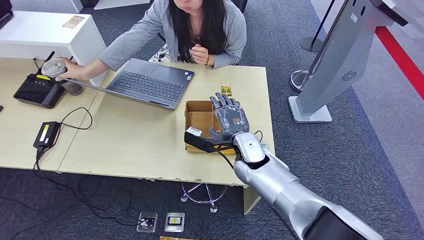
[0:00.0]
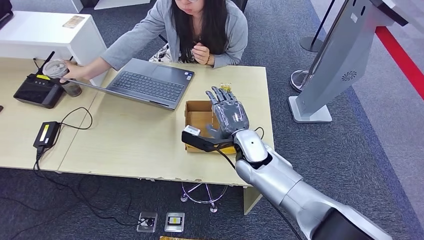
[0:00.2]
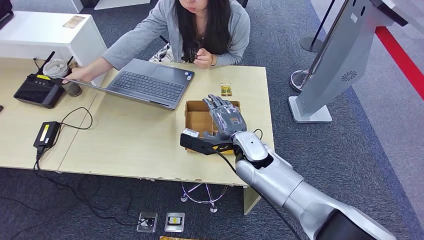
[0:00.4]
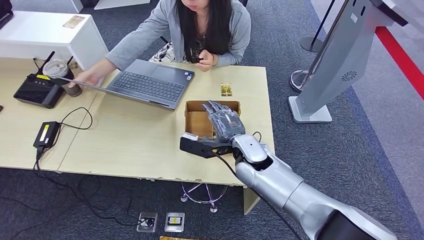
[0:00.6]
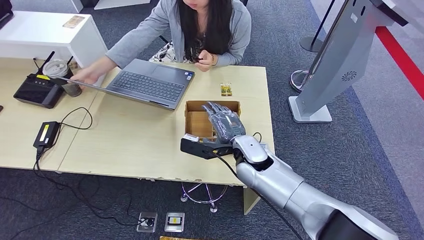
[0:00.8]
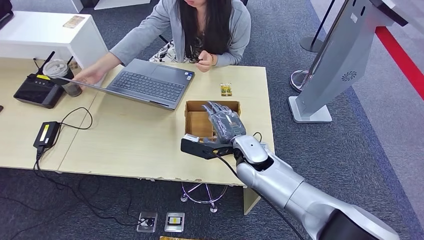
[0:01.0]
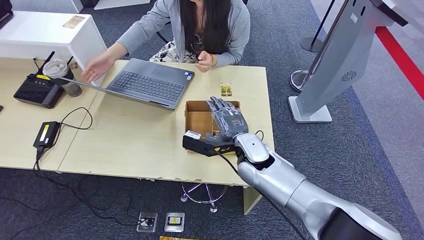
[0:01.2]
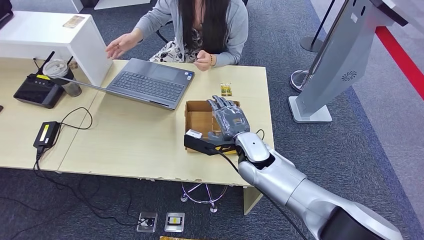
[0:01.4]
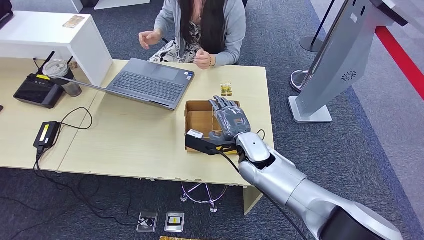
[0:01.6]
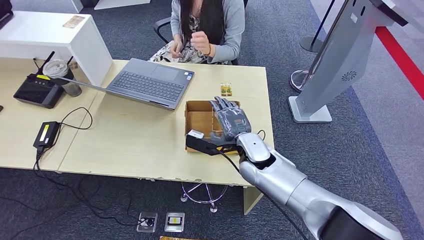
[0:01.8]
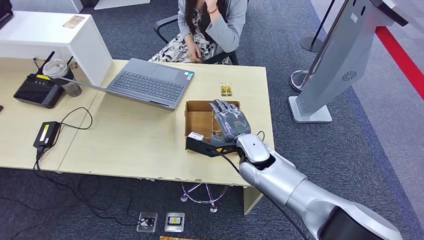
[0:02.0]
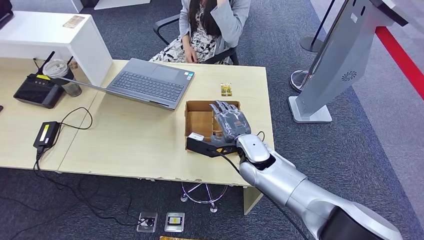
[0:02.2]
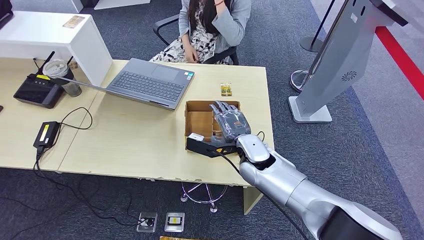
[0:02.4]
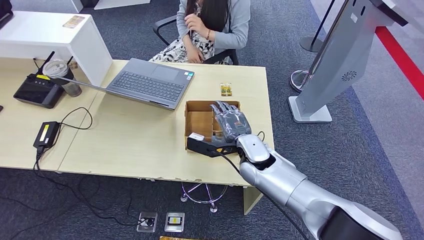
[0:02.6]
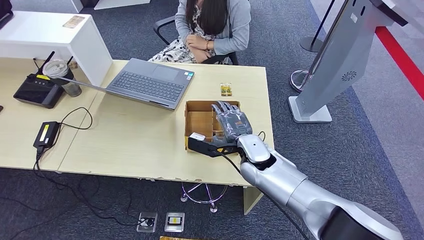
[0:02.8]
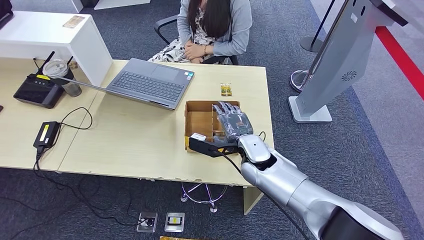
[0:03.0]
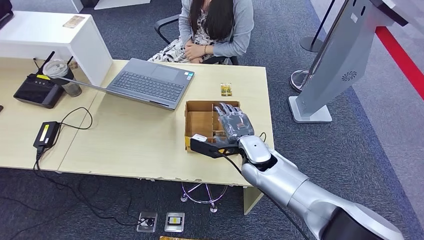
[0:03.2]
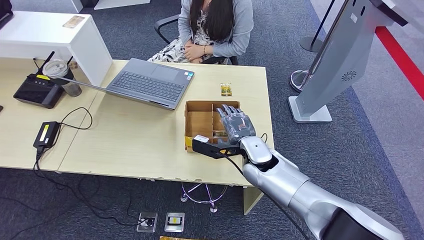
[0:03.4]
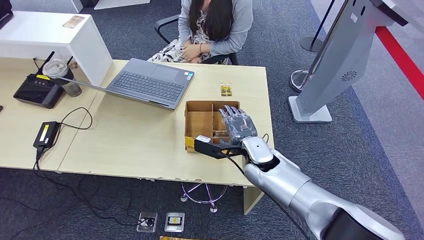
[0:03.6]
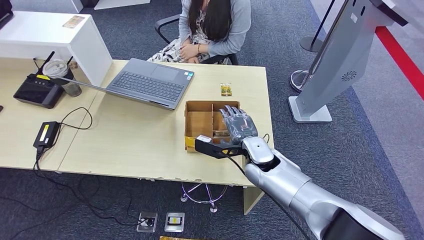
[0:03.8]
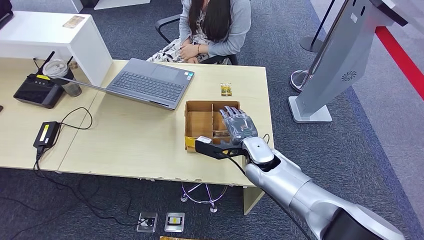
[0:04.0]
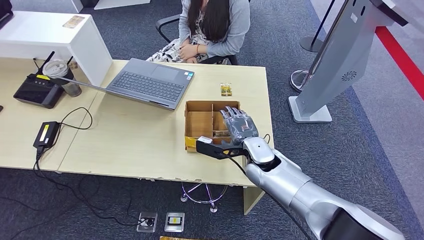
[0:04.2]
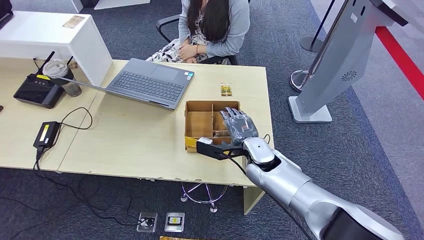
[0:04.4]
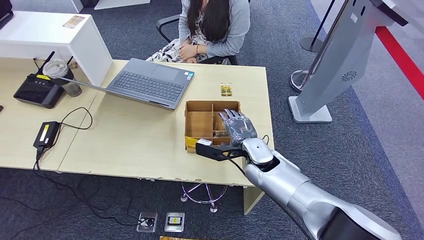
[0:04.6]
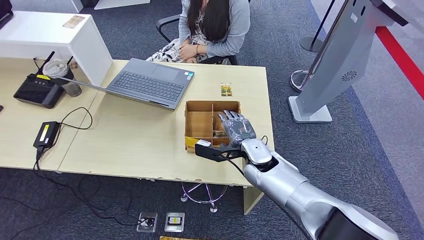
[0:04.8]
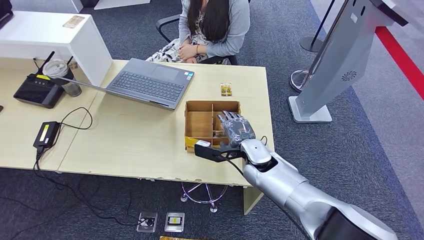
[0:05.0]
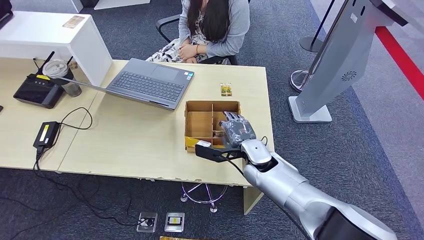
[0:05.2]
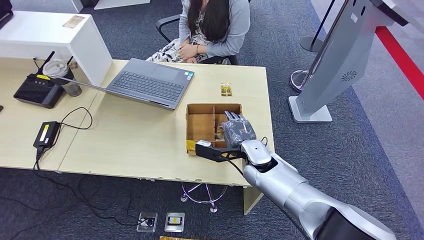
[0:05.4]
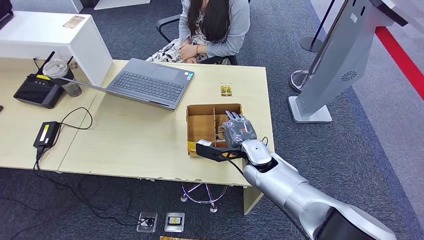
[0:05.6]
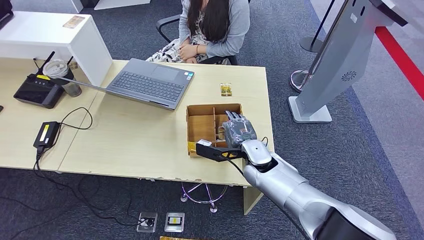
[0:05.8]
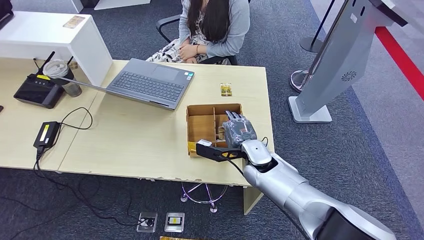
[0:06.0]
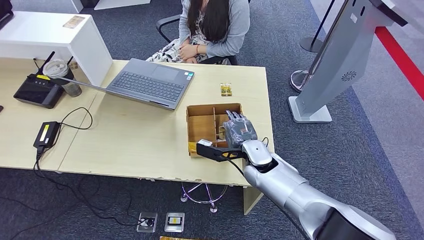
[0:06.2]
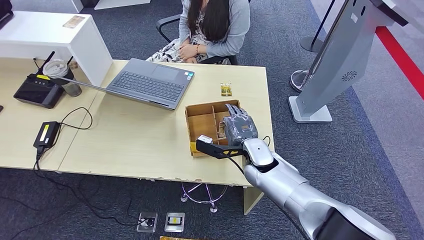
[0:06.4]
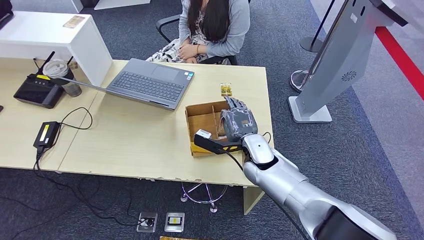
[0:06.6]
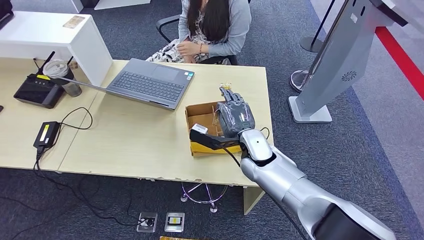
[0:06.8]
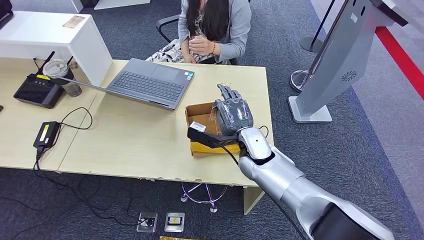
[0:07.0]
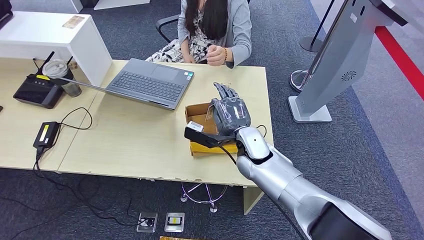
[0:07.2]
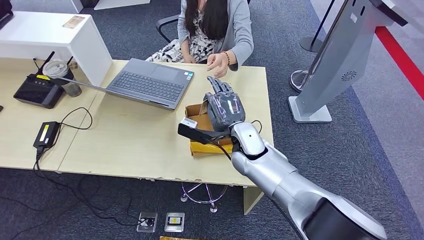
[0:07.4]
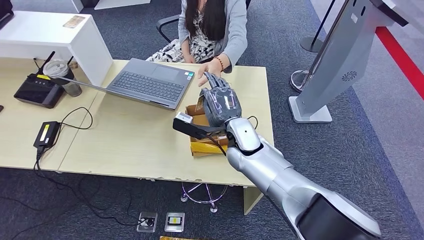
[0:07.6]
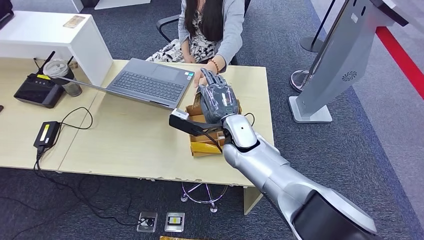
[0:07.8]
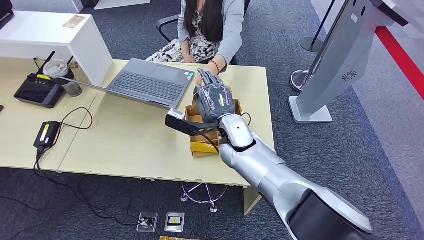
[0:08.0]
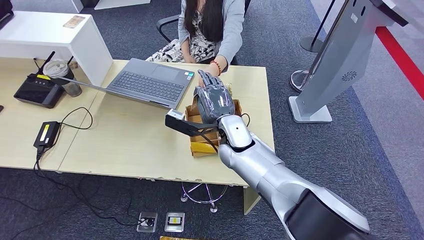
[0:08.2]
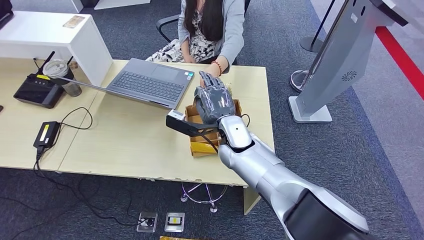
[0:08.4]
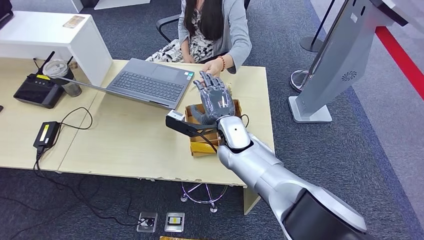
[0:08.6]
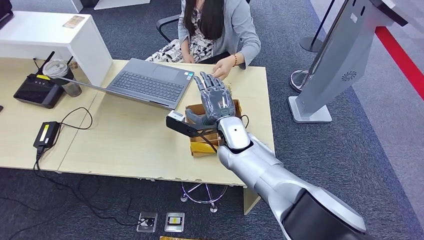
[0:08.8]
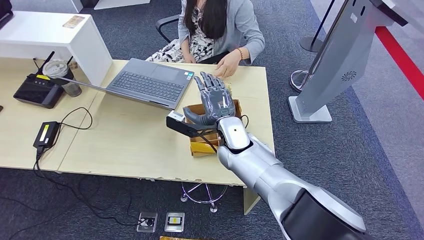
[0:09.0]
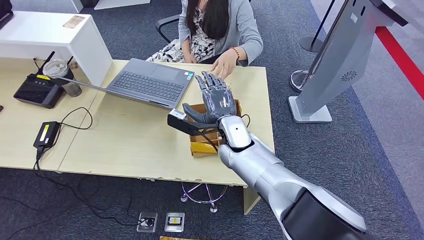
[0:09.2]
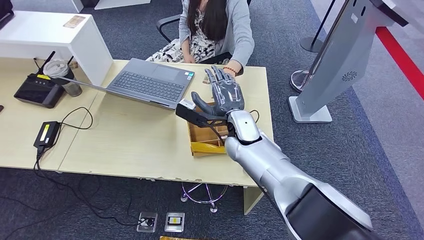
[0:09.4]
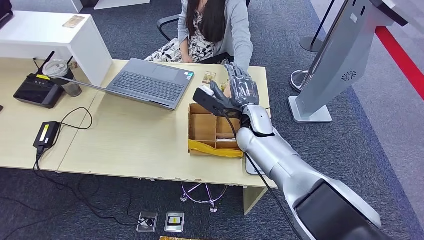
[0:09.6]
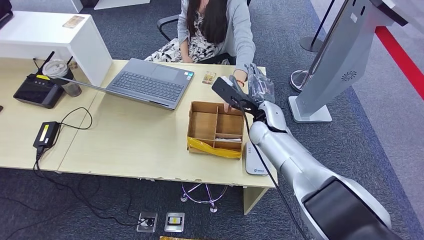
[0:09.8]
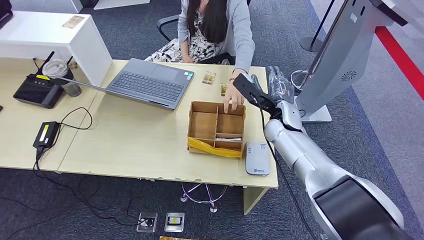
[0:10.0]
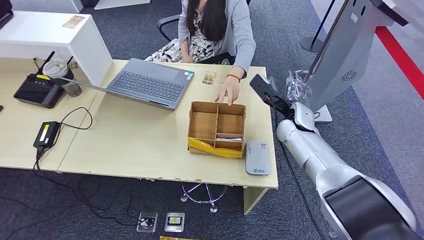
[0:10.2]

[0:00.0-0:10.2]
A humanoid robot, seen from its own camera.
Step, 0:00.0 to 0:06.6: Pick up the room key from the key card box.
Step, 0:06.8 to 0:10.0: Hand the room key to the person.
0:00.0 to 0:04.4: The hands make only small movements.
0:04.4 to 0:05.8: Both hands stay put.
0:07.2 to 0:08.8: The right hand moves about 5 cm.
0:08.8 to 0:10.2: The right hand moves to the right, about 15 cm.
